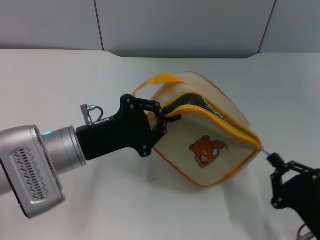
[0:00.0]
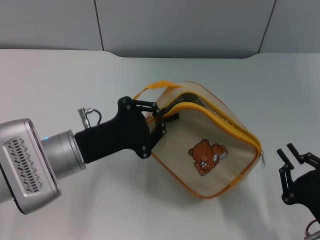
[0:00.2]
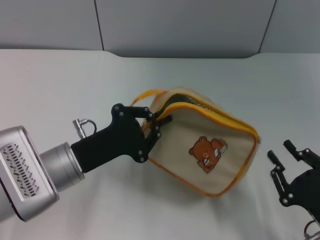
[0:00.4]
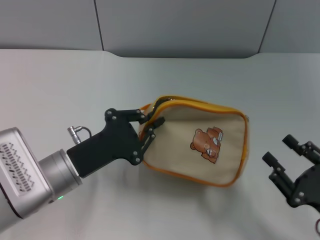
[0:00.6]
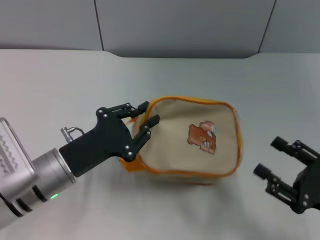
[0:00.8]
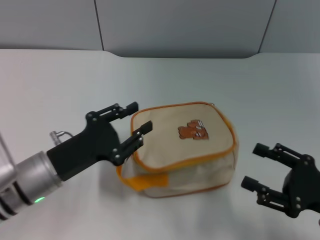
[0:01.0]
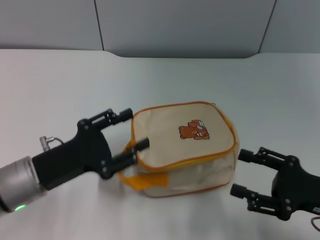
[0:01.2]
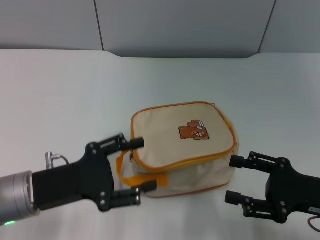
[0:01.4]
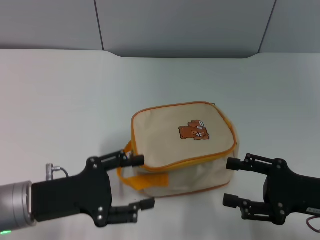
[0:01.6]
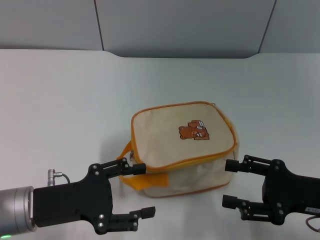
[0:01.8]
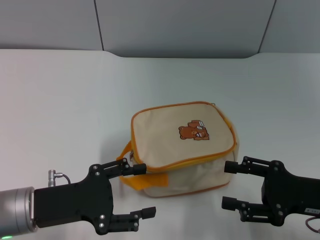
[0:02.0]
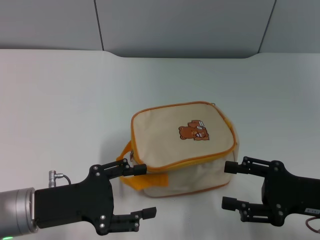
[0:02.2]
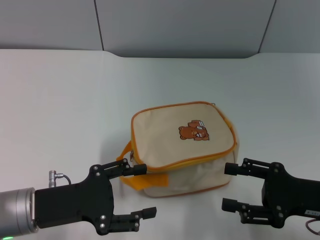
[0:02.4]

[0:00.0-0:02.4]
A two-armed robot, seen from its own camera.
Step, 0:00.2 to 0:00.8: Place the bag on the table with left gripper.
0:00.0 to 0:01.2: The left gripper shifts by about 5 cm, and opens up; the right gripper travels forward and upward by about 10 cm, and opens.
0:01.2 to 0:02.4: The left gripper opens up.
